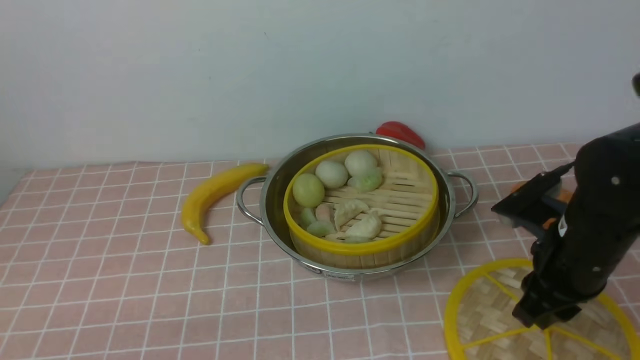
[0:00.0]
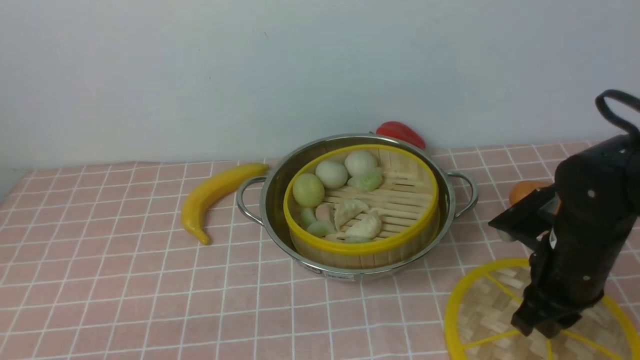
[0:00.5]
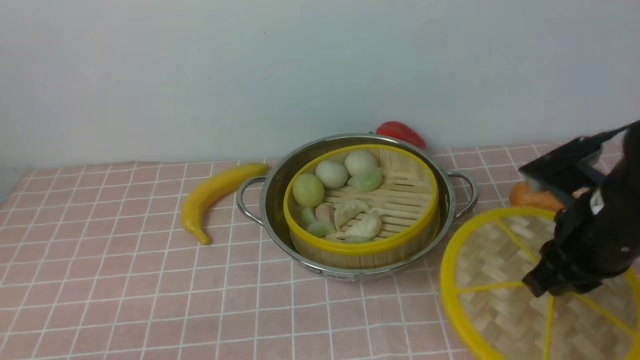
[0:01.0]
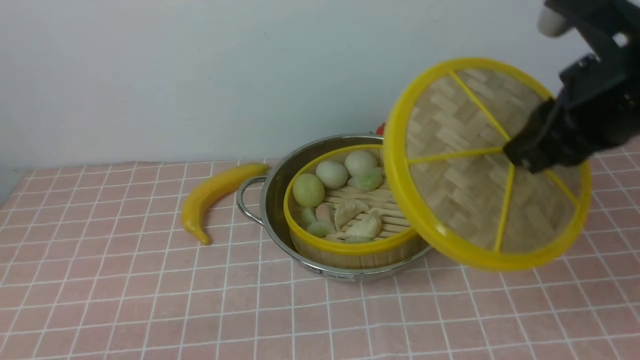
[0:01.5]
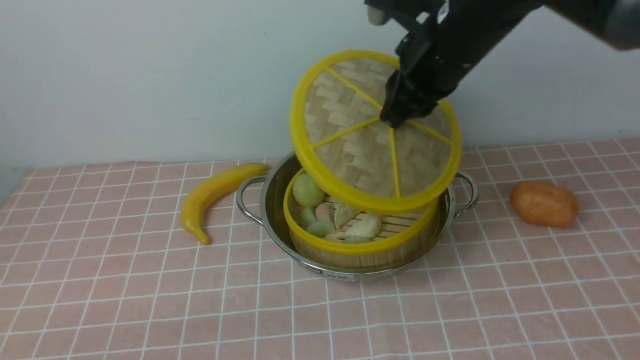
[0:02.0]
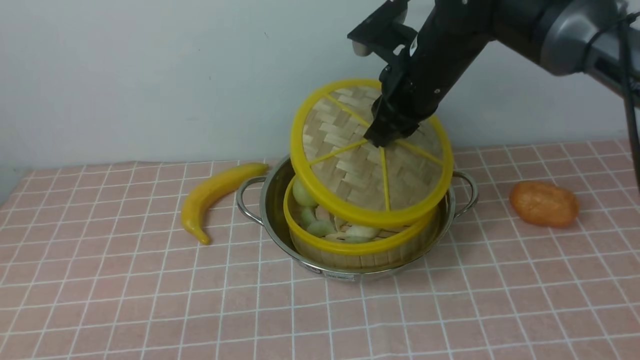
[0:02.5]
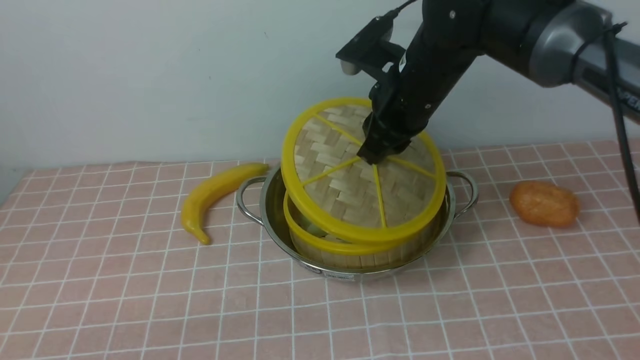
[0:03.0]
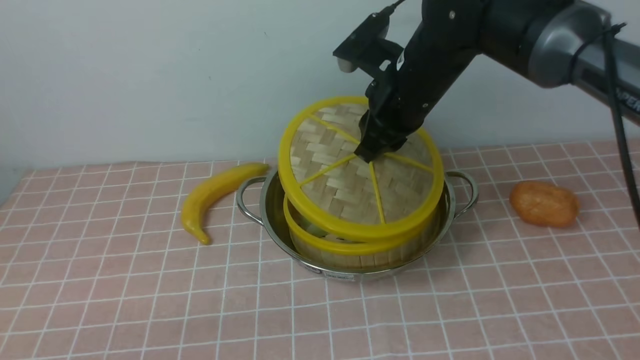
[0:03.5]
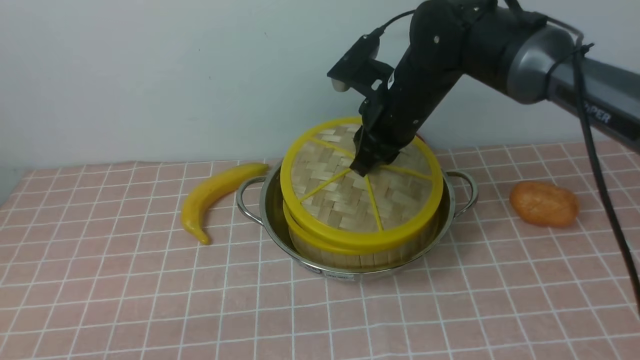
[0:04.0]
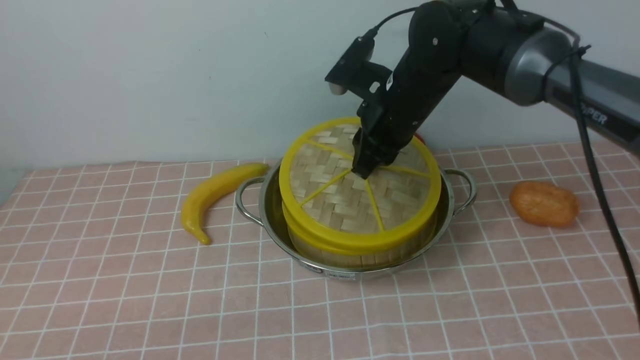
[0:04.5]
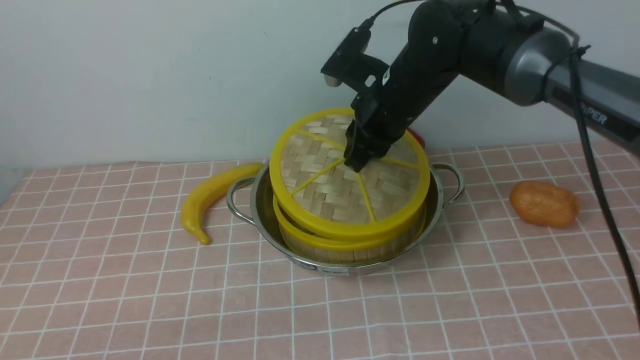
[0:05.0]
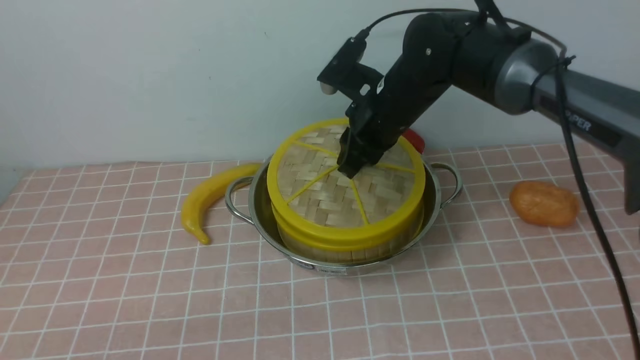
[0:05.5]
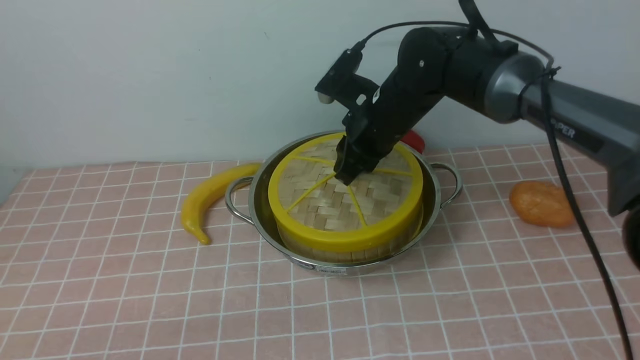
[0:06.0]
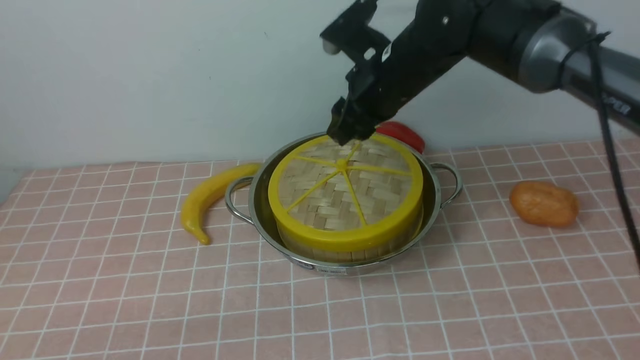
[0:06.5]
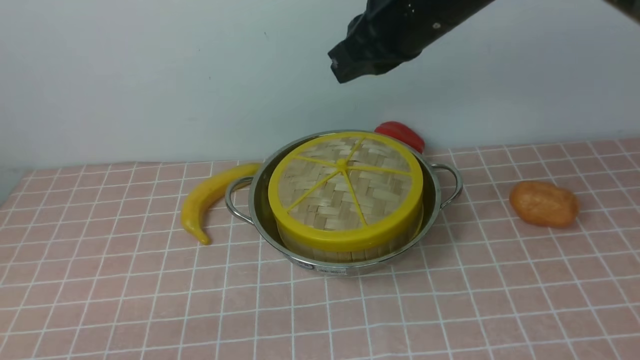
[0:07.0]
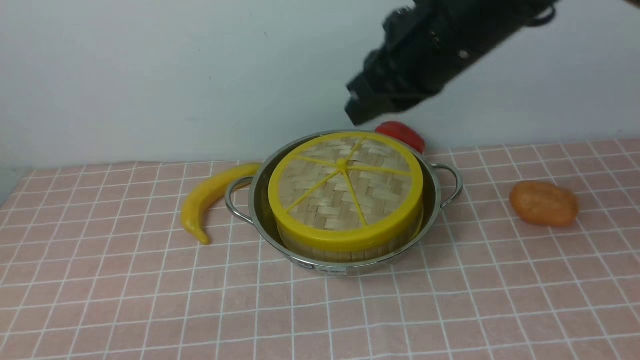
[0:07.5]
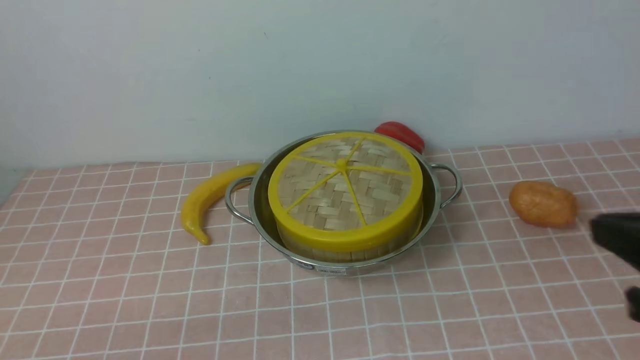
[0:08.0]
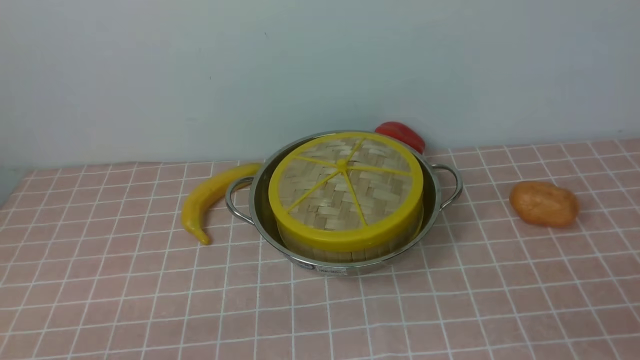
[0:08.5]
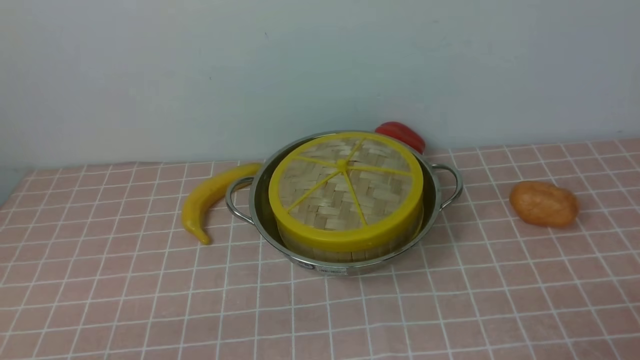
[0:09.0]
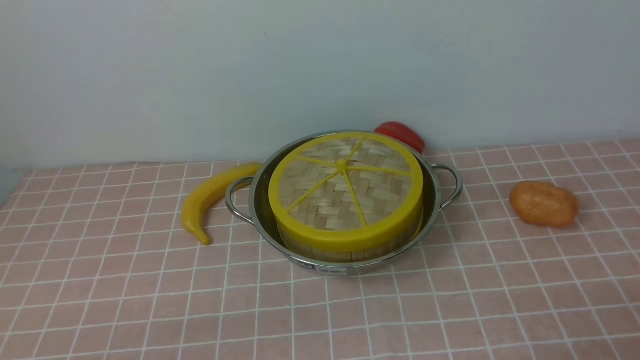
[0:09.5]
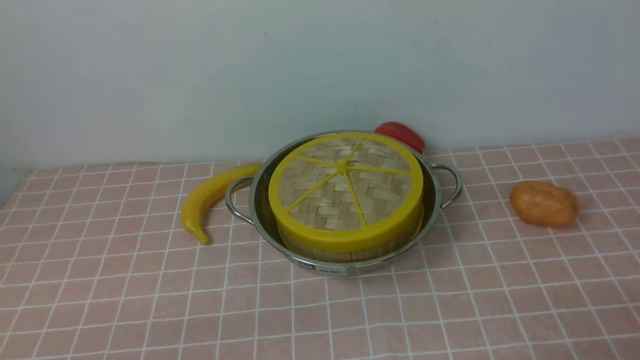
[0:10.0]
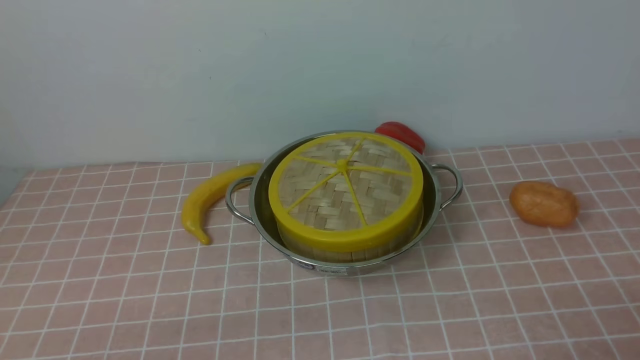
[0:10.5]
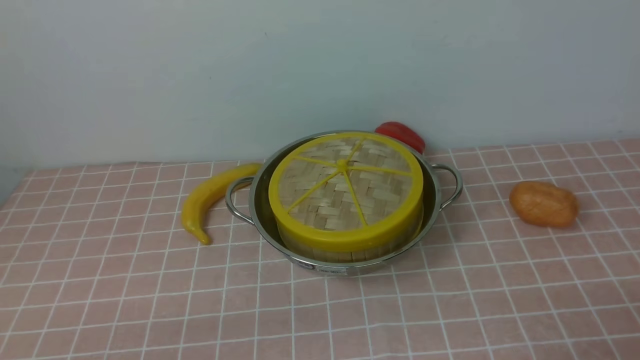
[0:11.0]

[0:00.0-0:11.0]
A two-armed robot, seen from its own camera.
Task of the whole recording: place the steamer in the pot on the pink tablecloth, and put the lid on the steamer.
Step, 0:01.0 to 0:06.5: use the right arm to place the steamer lid on the steamer.
0:00.0 to 0:02.0: The right gripper travels upward, forward and to the left by about 20 cm, and closes up.
0:02.0 to 0:03.5: The right gripper heads downward, covering roughly 5 cm.
0:03.5 to 0:05.5: The grippers move only a little.
0:05.5 to 0:07.5: The right gripper shifts roughly 15 cm upward and backward, and closes.
0:07.5 to 0:09.0: The right gripper heads backward, to the right and downward, covering approximately 40 cm, and opens its fingers.
